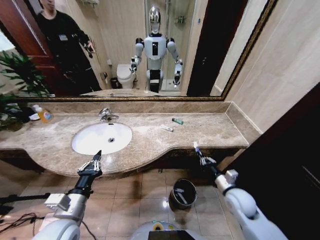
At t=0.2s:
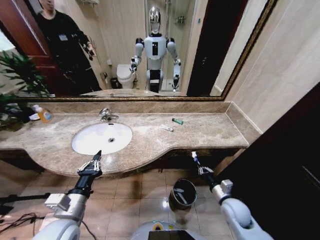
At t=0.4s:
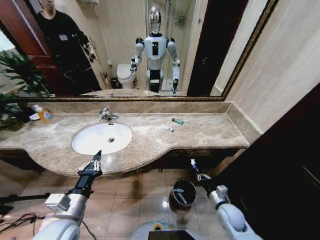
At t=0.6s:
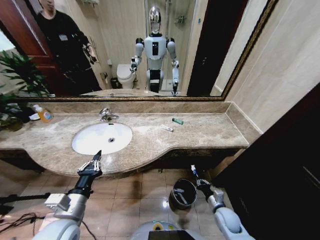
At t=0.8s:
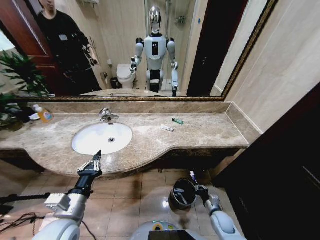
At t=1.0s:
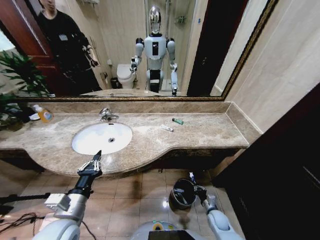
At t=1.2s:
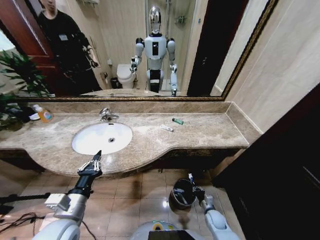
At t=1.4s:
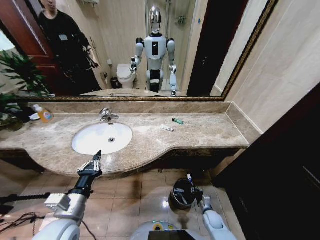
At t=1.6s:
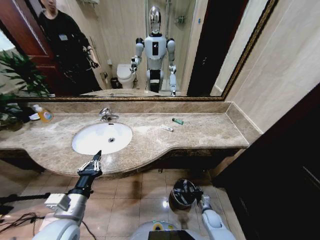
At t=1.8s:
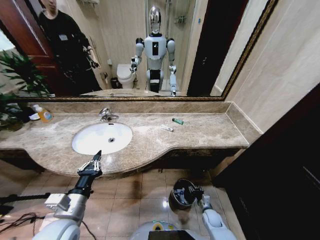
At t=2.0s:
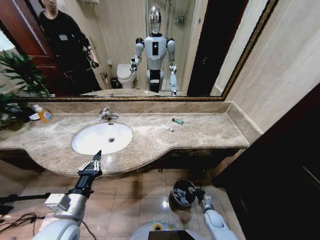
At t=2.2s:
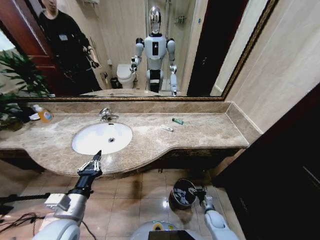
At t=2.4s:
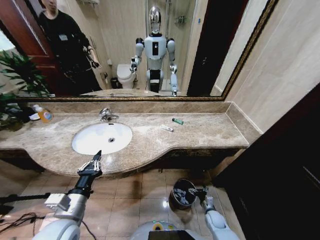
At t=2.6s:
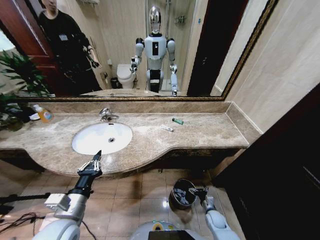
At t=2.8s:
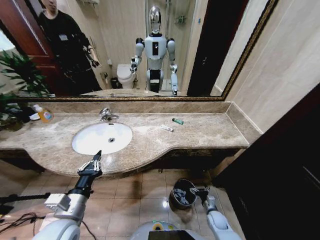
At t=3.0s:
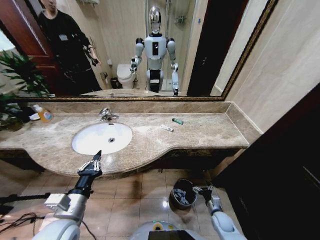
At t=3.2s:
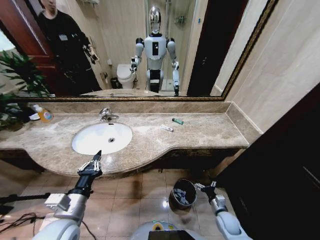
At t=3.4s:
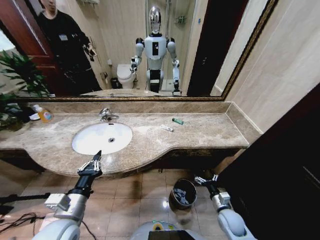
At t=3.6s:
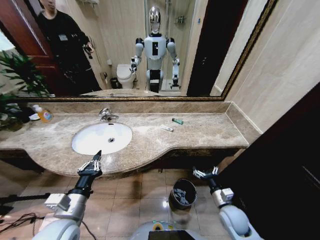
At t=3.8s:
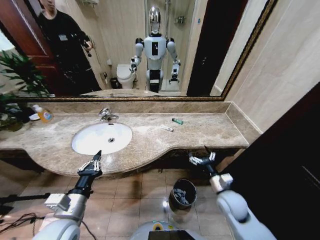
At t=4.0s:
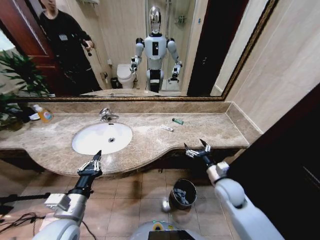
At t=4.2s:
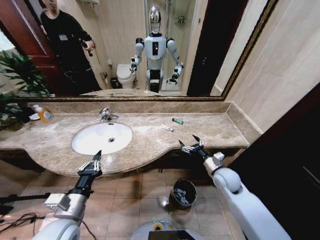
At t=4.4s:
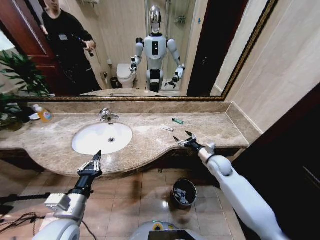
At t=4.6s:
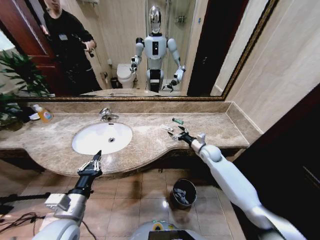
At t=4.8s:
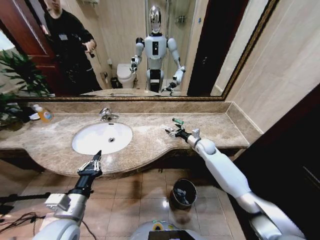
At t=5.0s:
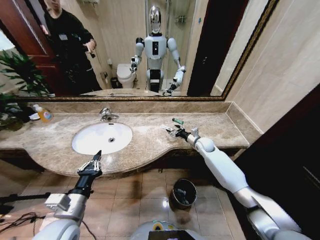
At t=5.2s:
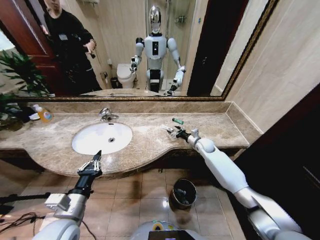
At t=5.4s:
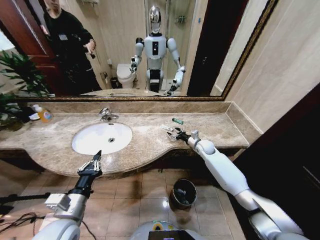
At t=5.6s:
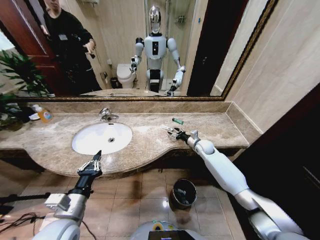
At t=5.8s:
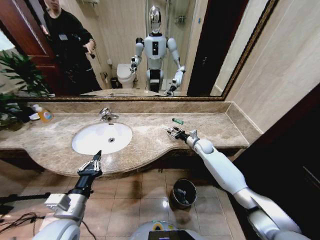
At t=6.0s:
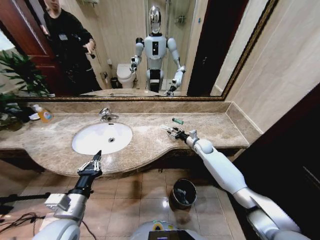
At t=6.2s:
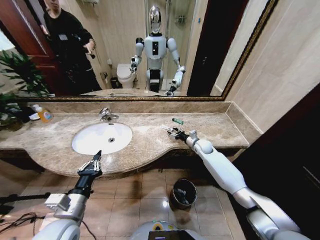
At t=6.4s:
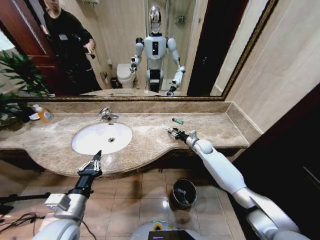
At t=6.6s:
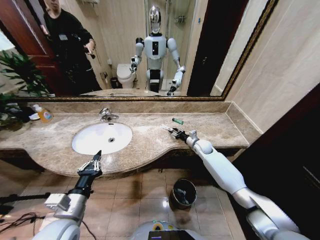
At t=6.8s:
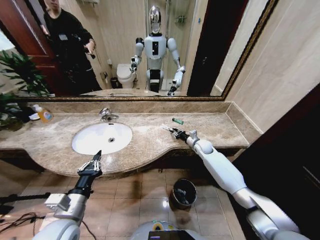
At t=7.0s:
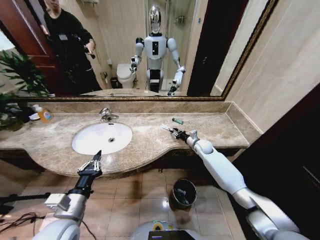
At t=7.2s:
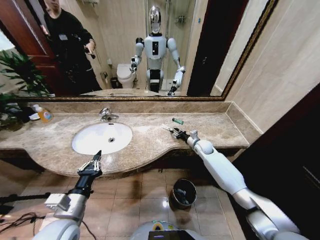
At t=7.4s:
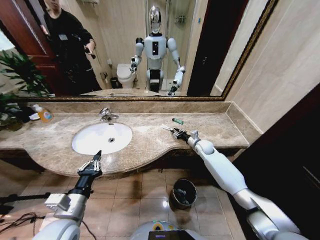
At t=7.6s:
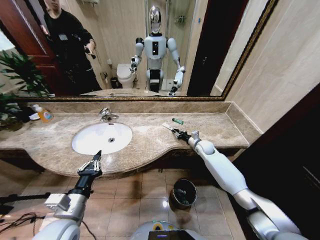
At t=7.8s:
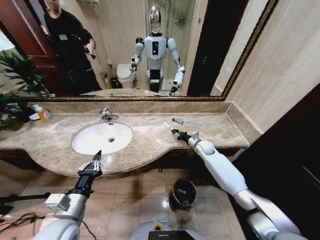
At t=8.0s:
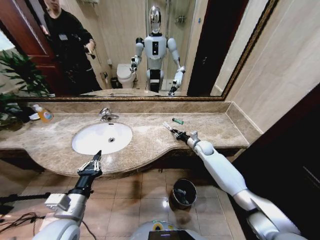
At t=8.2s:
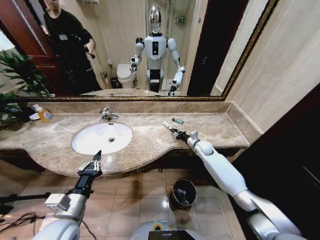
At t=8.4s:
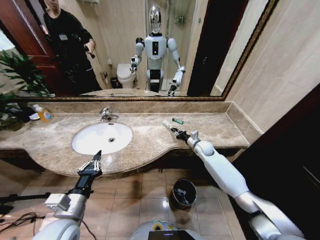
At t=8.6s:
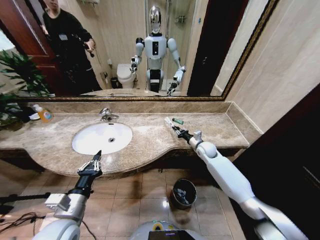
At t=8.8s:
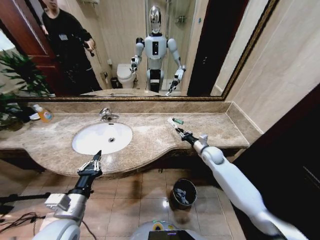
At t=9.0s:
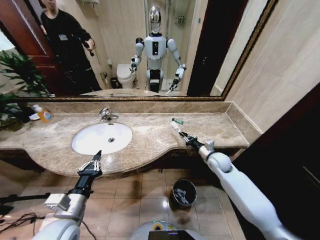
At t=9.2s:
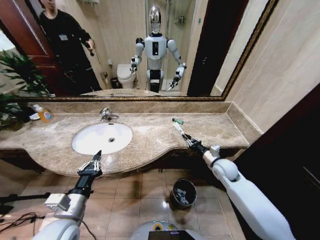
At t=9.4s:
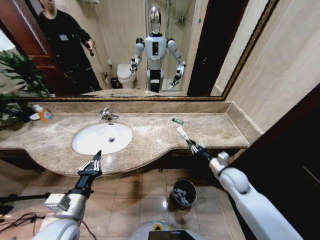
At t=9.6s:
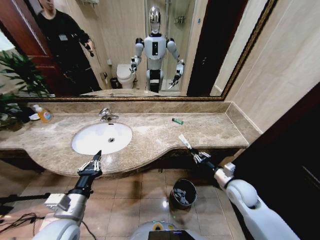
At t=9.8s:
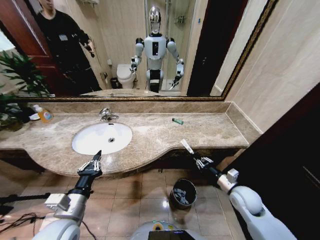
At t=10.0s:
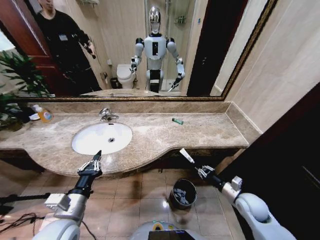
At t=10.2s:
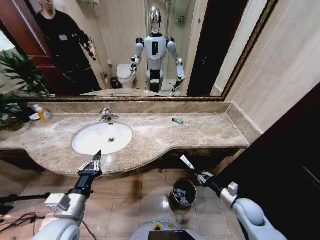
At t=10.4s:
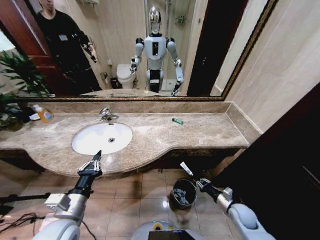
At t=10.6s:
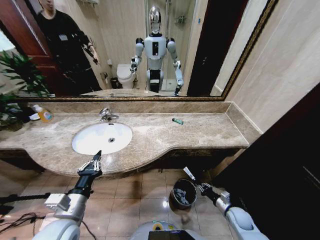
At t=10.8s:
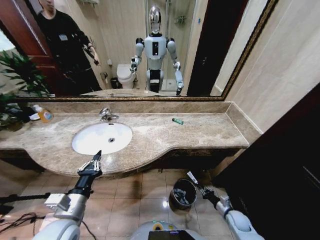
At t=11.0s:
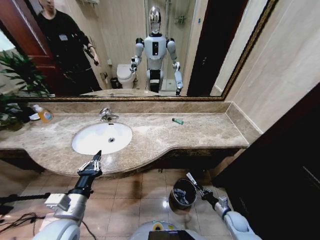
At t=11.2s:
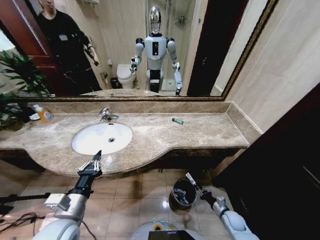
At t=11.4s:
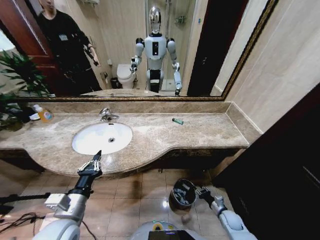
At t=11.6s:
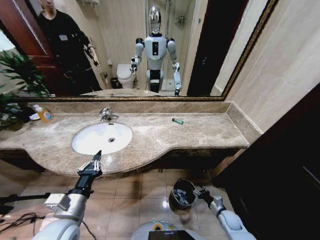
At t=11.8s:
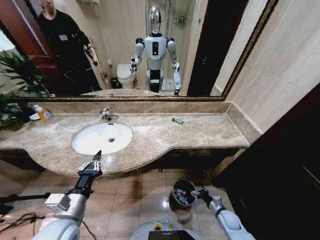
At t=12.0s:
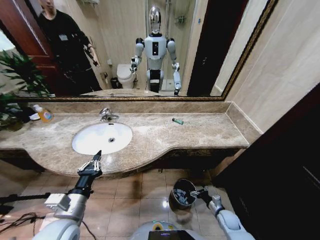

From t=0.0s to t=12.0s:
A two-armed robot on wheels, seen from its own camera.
Task of the whole recording: Pick up the trash from the sink and place it in the trash bin.
From t=0.0s to t=1.6s: The right gripper moves downward, approximately 25 cm.
From t=1.6s to t=3.0s: The right gripper ends up approximately 5 cm from where it was, and opens.
From t=3.0s to t=4.4s: The right gripper heads upward and forward, covering about 30 cm.
From t=4.4s to t=6.0s: The right gripper travels forward by roughly 15 cm, and closes its fingers.
From t=6.0s to t=7.6s: The right gripper closes.
From t=7.6s to t=9.0s: The right gripper heads backward, covering roughly 10 cm.
From t=9.0s to t=10.4s: The right gripper heads backward, downward and to the right, covering some 25 cm.
From t=10.4s to t=12.0s: The right gripper is displaced downward by some 10 cm, and opens.

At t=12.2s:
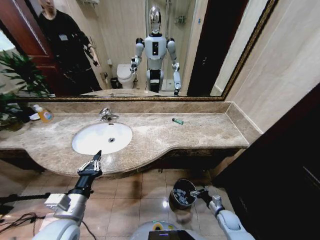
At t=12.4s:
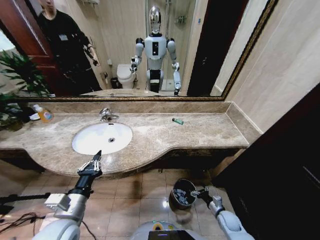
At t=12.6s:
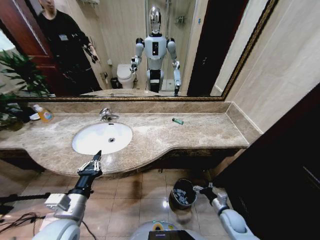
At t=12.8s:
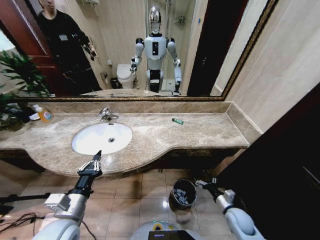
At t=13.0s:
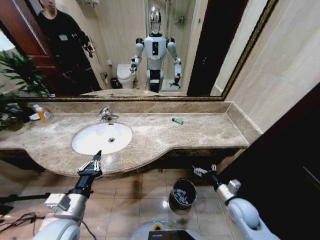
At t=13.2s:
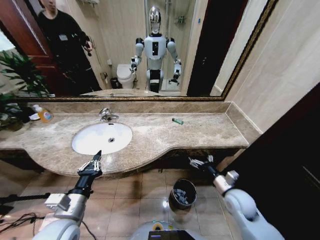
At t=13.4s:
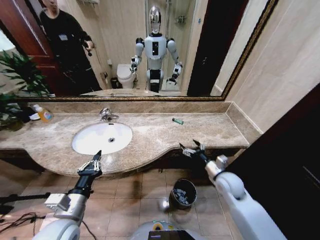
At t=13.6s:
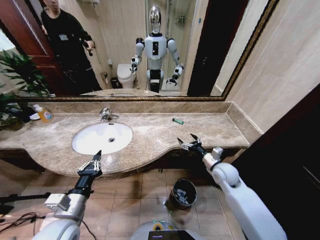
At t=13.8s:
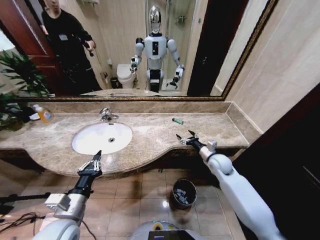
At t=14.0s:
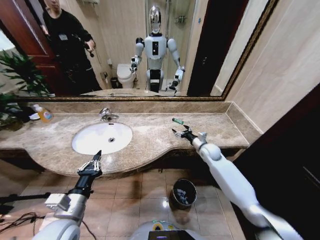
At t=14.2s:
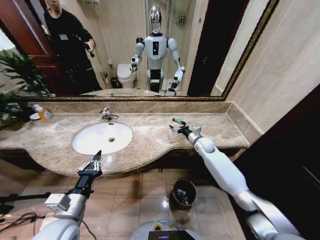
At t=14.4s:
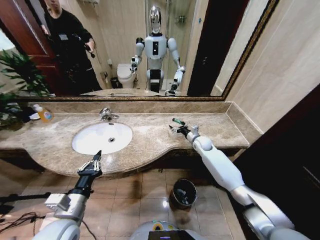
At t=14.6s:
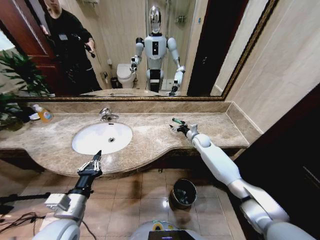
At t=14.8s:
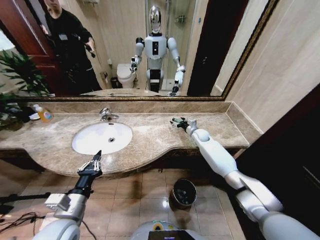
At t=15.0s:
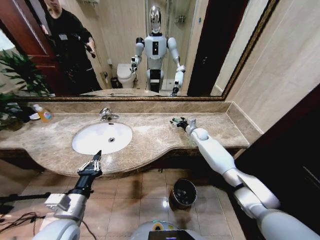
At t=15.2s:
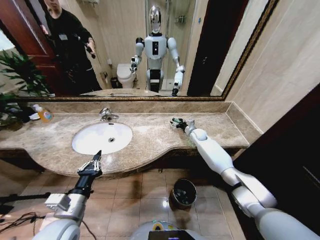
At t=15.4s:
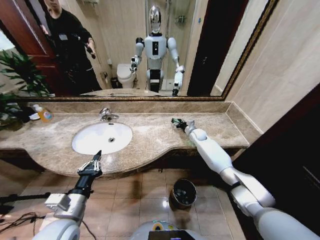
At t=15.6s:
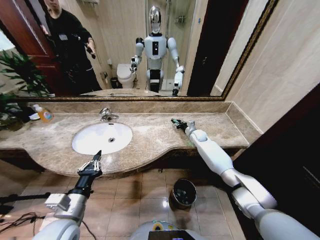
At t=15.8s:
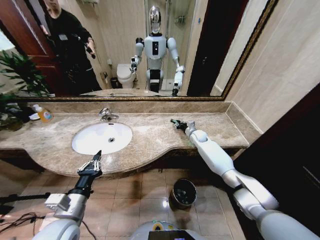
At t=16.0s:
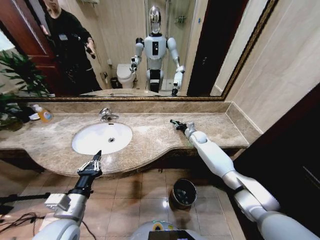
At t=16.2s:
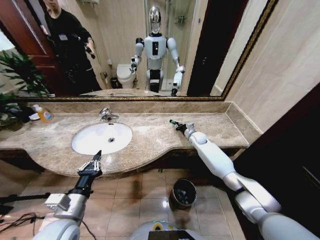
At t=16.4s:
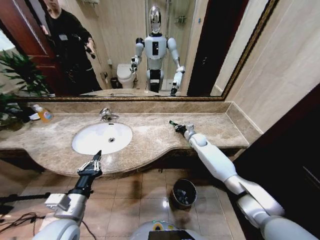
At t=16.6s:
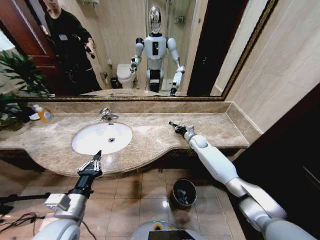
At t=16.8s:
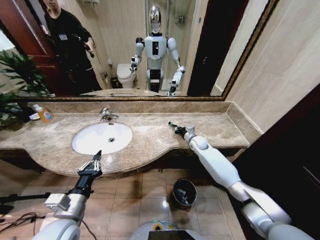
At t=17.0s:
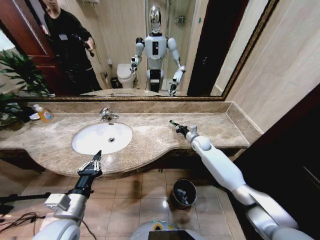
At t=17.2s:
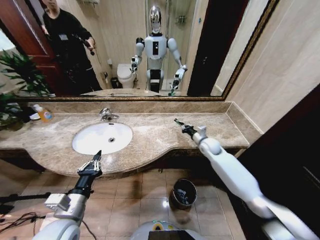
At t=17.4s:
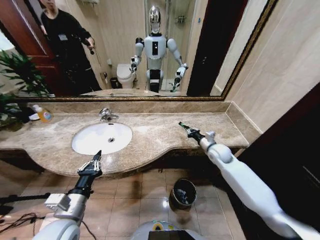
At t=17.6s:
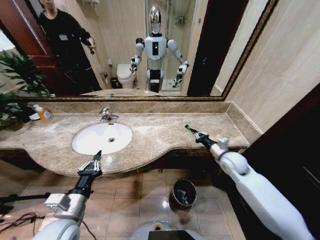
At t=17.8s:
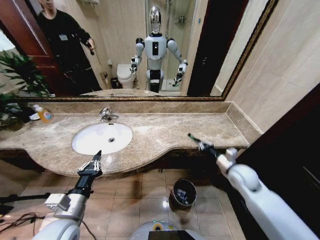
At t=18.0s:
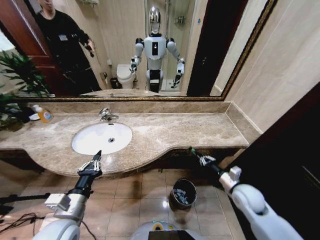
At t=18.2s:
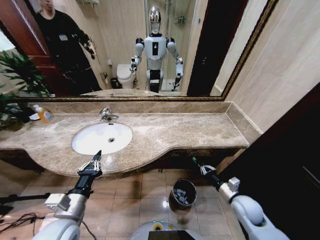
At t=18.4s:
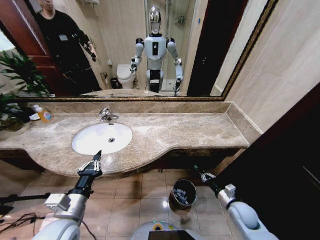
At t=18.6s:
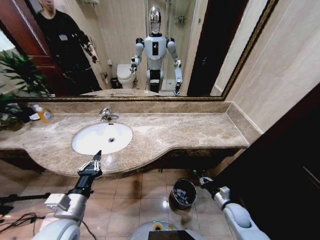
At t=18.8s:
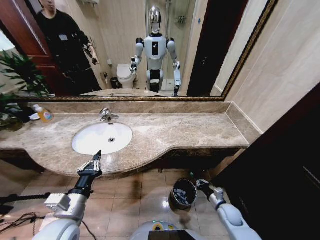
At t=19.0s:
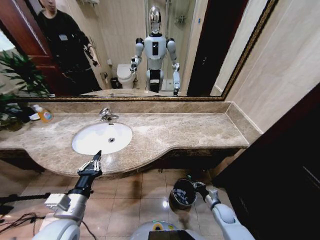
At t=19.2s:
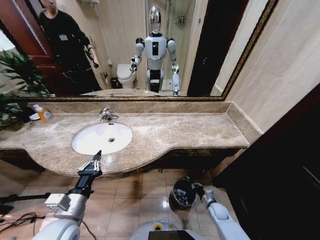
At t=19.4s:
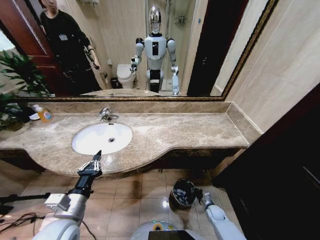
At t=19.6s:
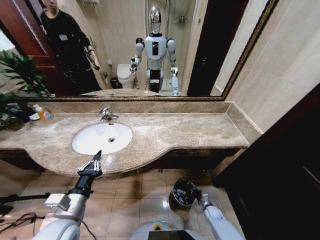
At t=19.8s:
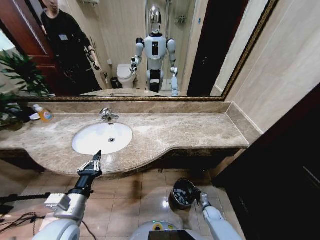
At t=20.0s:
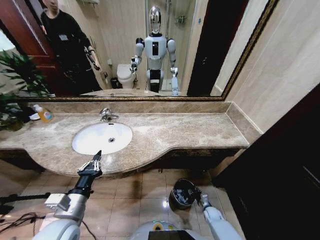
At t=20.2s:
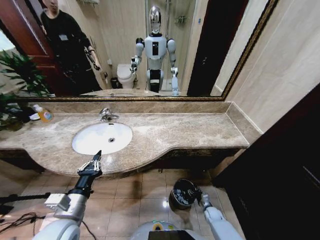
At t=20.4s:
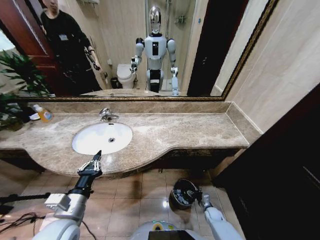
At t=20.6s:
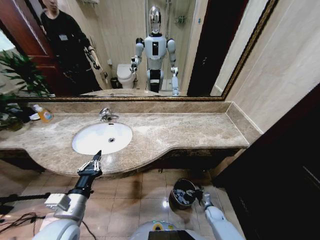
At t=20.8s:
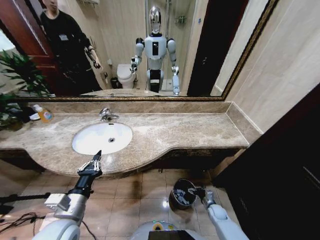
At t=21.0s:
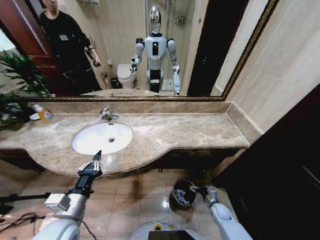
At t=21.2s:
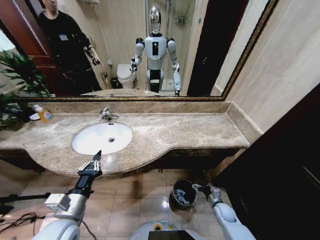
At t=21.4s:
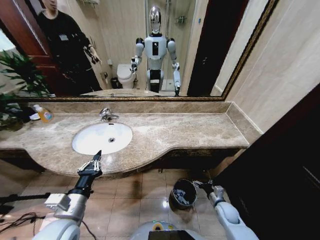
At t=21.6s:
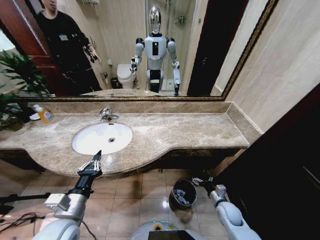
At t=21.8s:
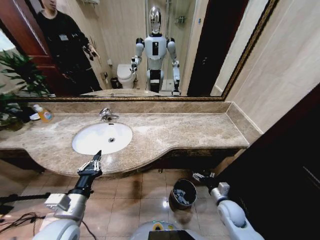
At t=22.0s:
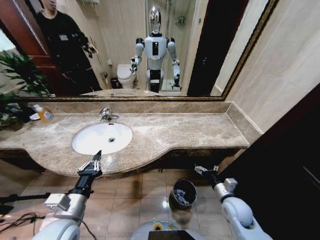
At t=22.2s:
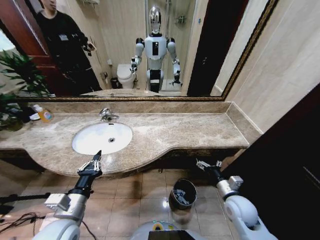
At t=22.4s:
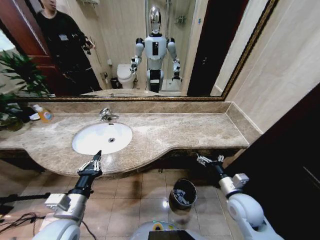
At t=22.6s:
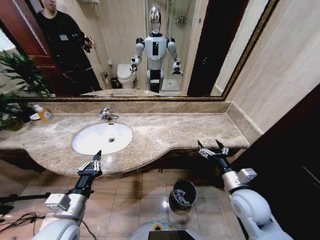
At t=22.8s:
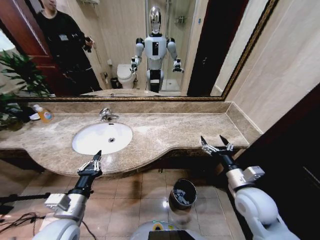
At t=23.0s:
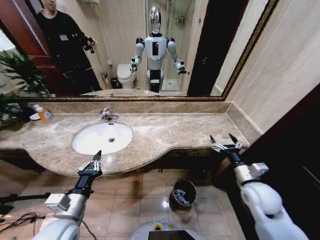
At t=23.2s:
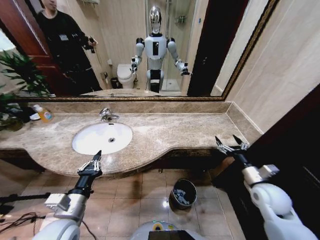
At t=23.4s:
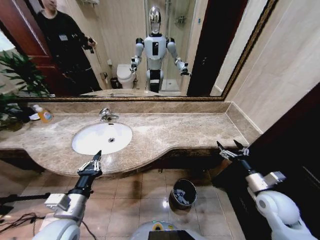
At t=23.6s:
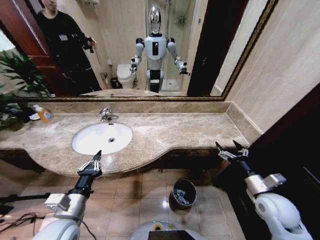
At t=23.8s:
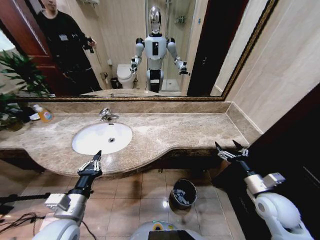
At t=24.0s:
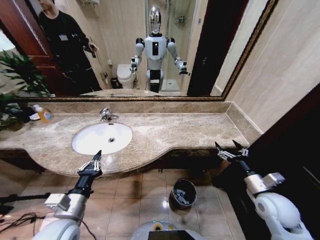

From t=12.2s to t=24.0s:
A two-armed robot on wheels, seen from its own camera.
Task of the whole recording: Pick up the trash from the sink and place it in the trash bin.
From t=12.2s to t=13.6s: The right gripper moves upward and forward, approximately 30 cm.
From t=13.6s to t=15.2s: The right gripper is displaced forward by approximately 25 cm.
From t=15.2s to t=16.6s: The right gripper closes its fingers.
From t=16.6s to t=18.2s: The right gripper shifts roughly 35 cm backward.
From t=18.2s to t=19.6s: The right gripper is displaced downward by some 25 cm.
From t=19.6s to t=21.0s: The right gripper moves upward, about 5 cm, and opens up.
From t=21.0s to t=22.6s: The right gripper shifts approximately 35 cm upward.
From t=22.6s to t=24.0s: The right gripper goes about 10 cm to the right.
